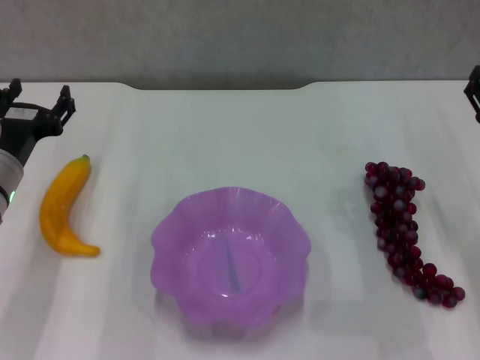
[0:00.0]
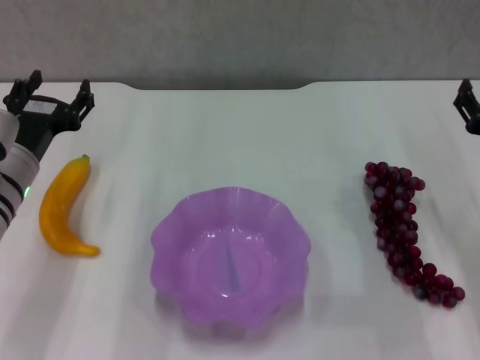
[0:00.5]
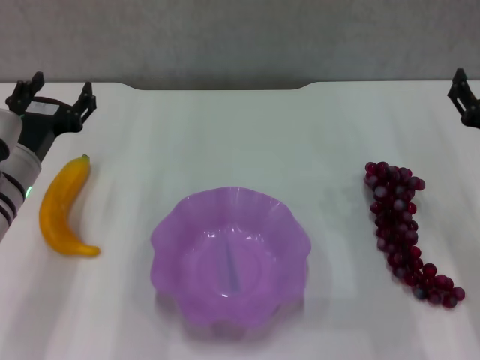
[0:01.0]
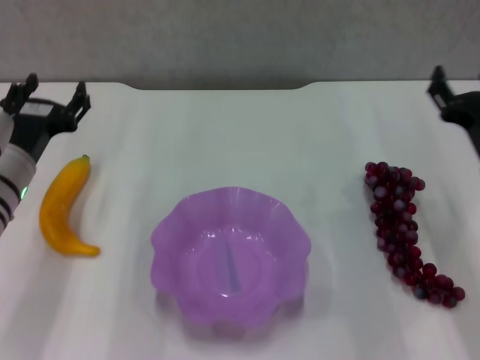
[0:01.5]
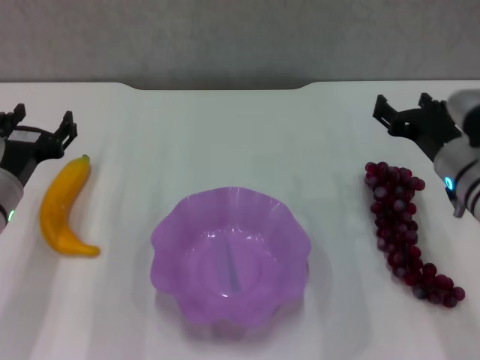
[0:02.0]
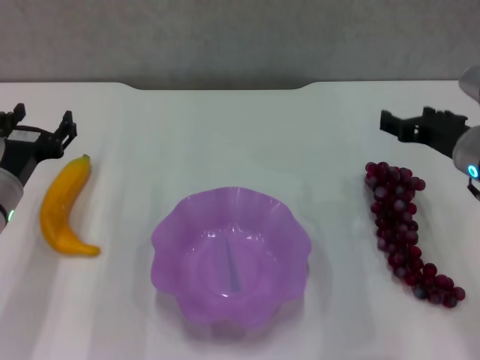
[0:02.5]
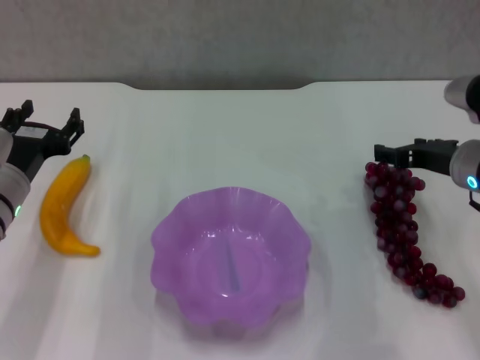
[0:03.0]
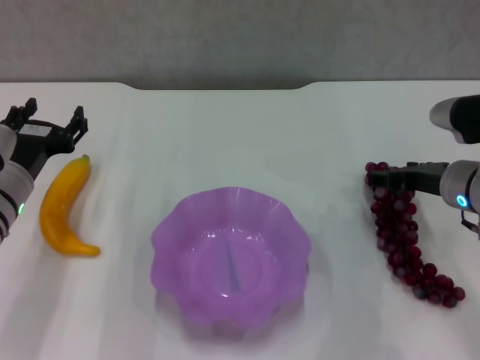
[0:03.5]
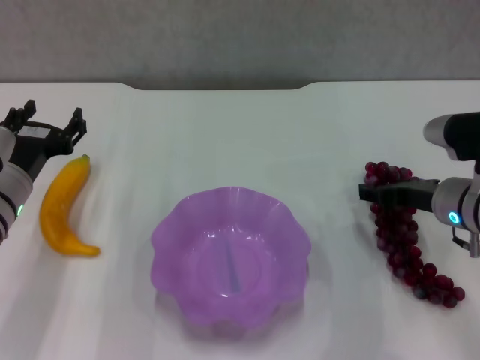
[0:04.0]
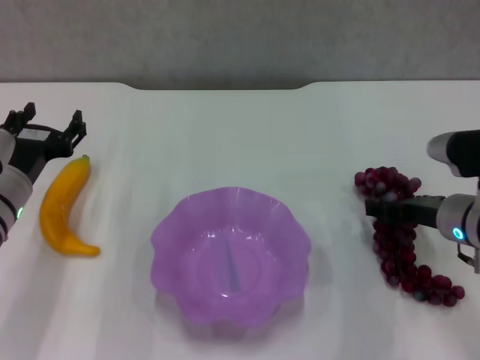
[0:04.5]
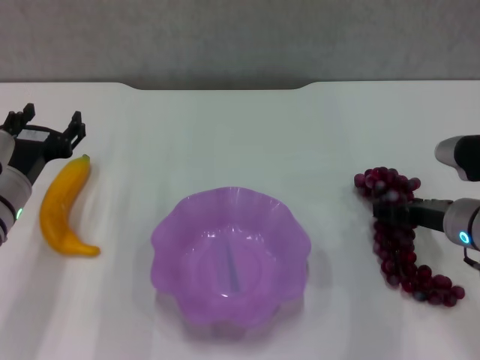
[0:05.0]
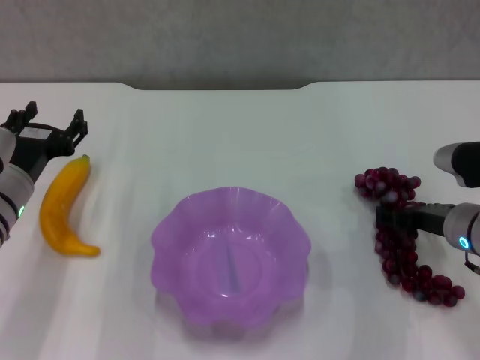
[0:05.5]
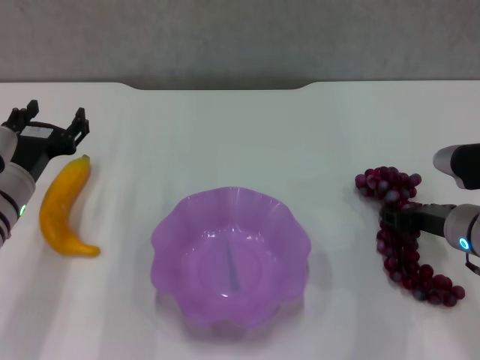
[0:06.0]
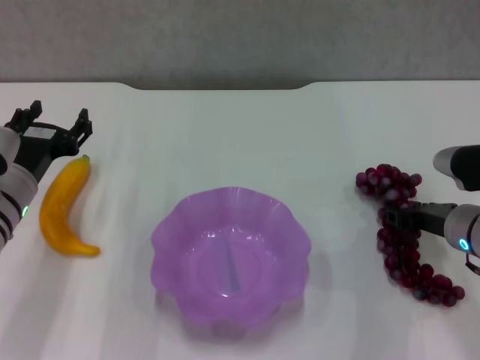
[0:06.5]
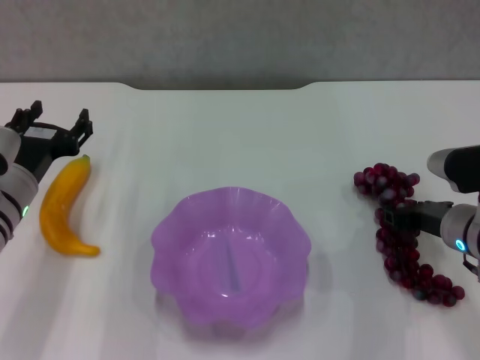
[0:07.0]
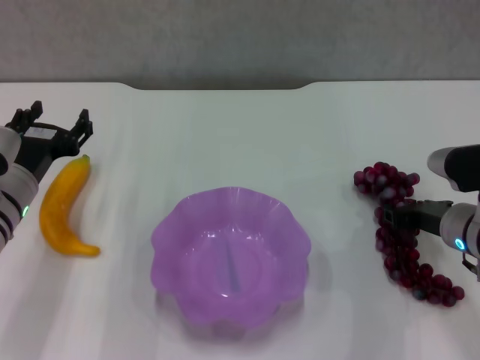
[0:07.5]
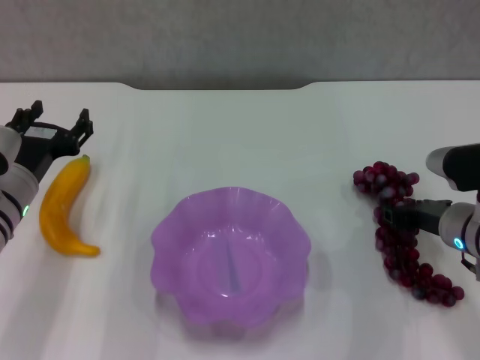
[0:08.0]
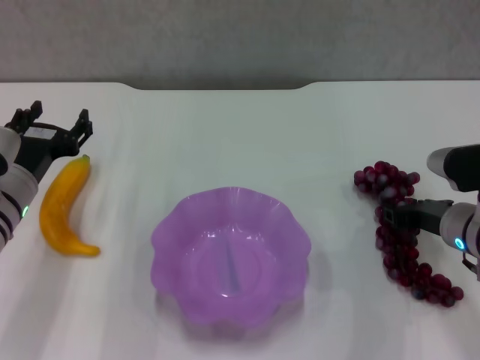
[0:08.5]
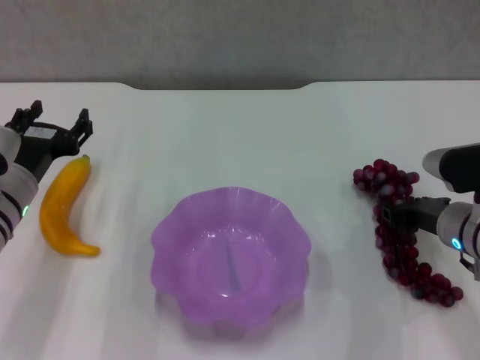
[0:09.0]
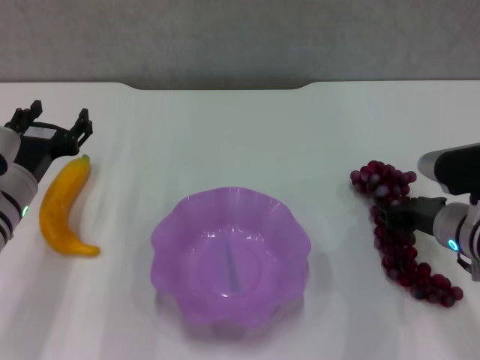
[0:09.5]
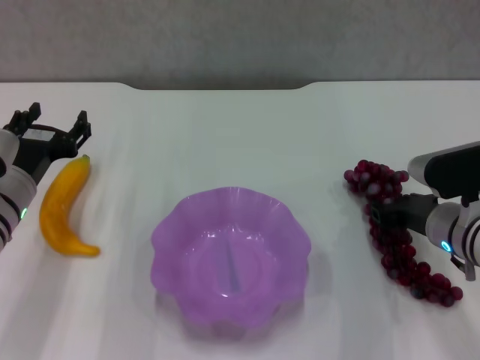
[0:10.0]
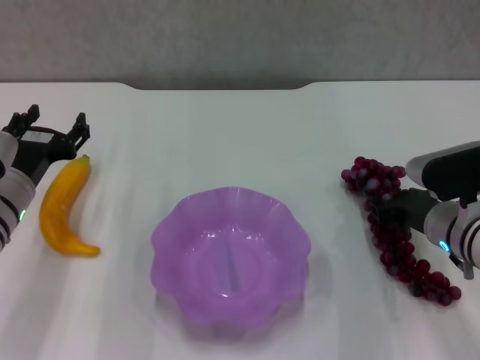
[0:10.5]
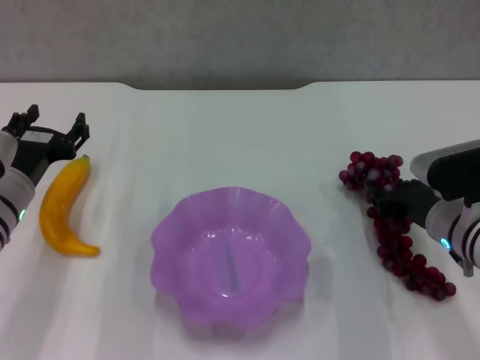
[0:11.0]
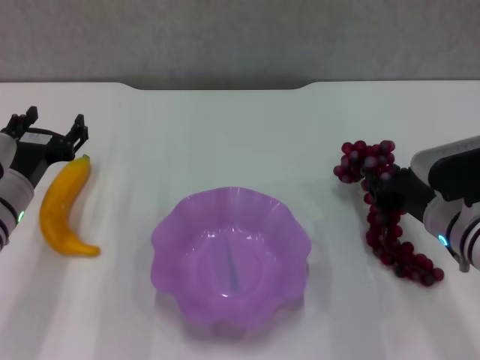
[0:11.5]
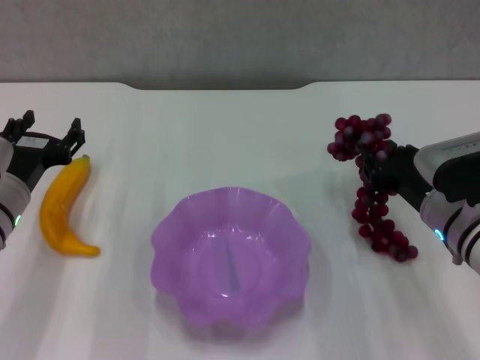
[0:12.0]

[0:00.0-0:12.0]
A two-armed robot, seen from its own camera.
Step, 0.0 to 9.5 s: Grasp the grape with right gripper.
0.0 to 2.0 s: The right gripper goes roughly 5 cm to the left.
4.0 to 6.0 s: The right gripper closes its fingers.
6.0 to 8.0 s: The right gripper closes.
8.0 to 10.0 s: The grippers make only small movements.
10.0 to 12.0 s: The grippers stay close to where they were, moving slightly.

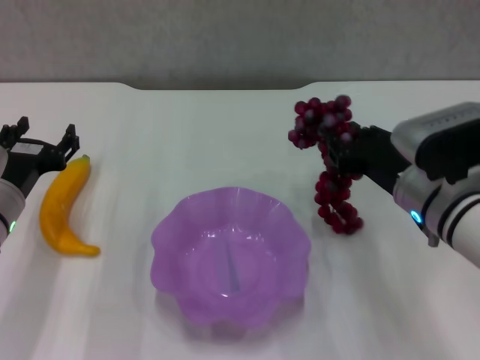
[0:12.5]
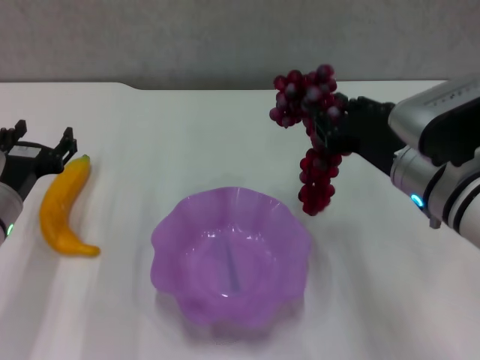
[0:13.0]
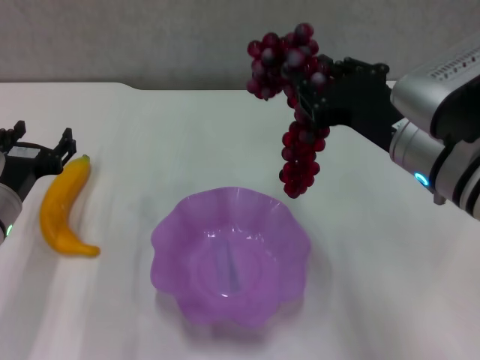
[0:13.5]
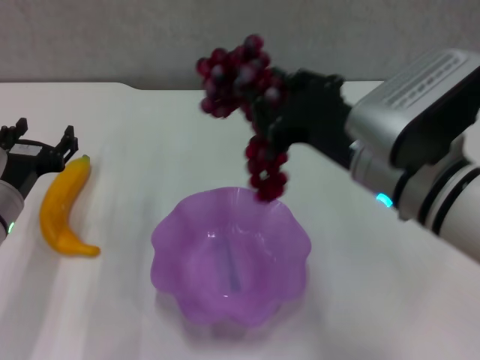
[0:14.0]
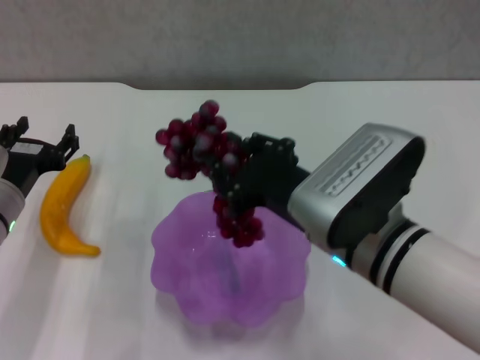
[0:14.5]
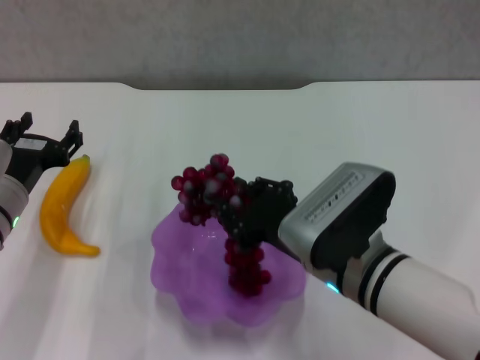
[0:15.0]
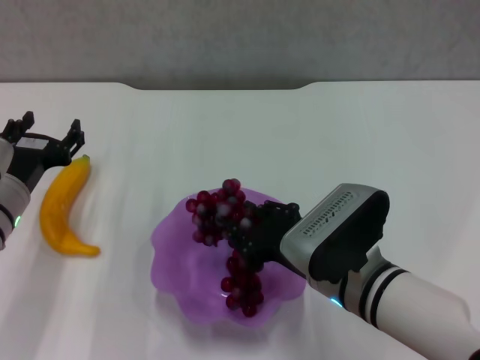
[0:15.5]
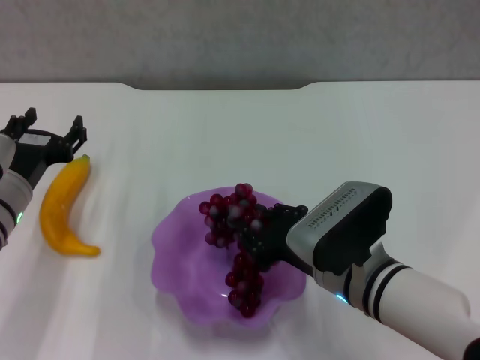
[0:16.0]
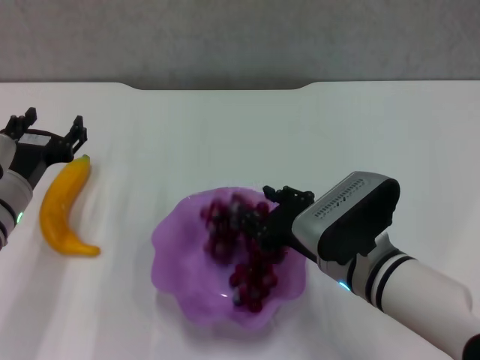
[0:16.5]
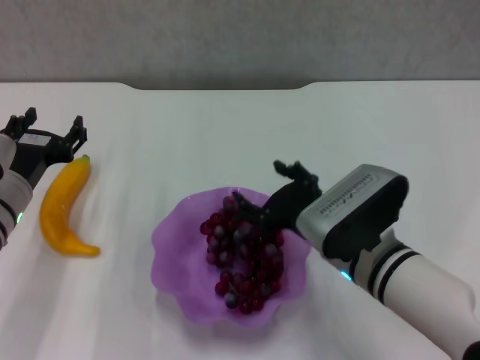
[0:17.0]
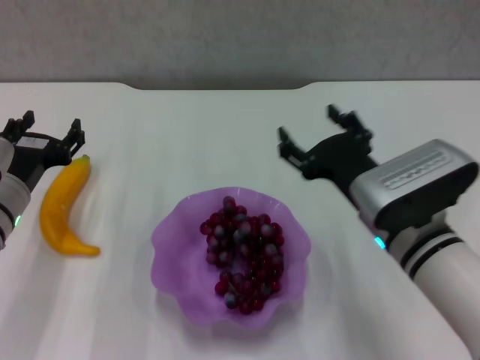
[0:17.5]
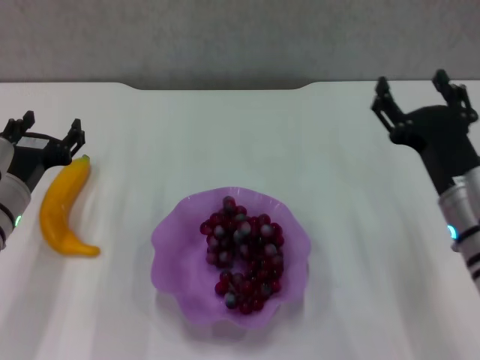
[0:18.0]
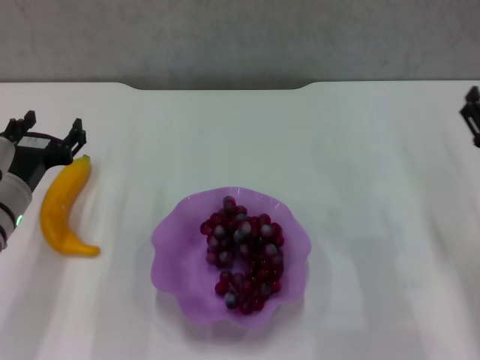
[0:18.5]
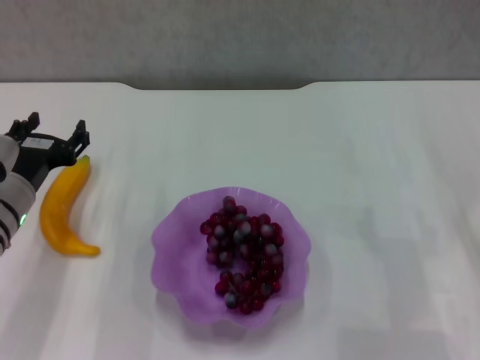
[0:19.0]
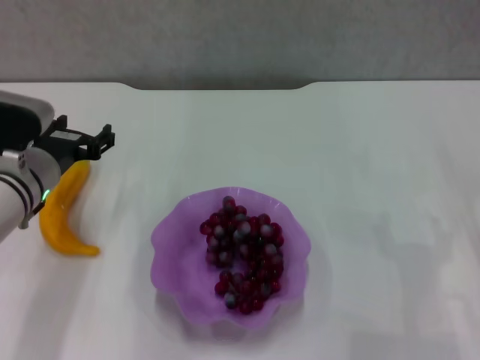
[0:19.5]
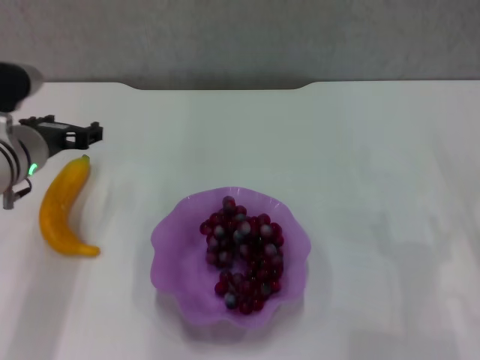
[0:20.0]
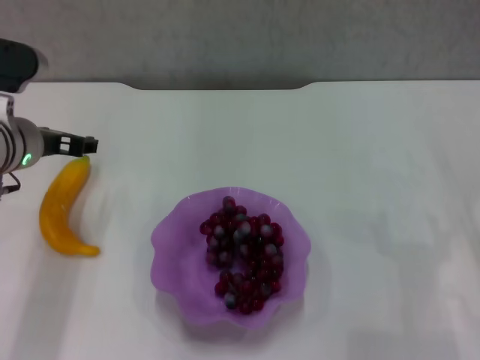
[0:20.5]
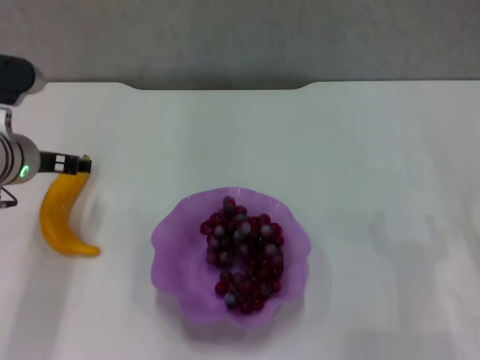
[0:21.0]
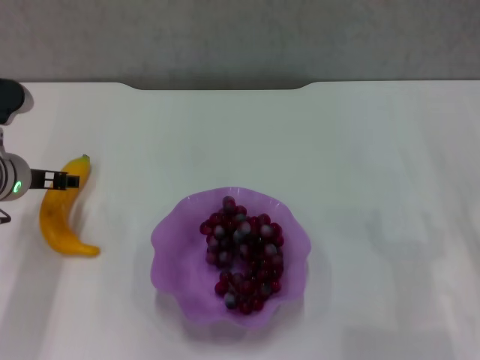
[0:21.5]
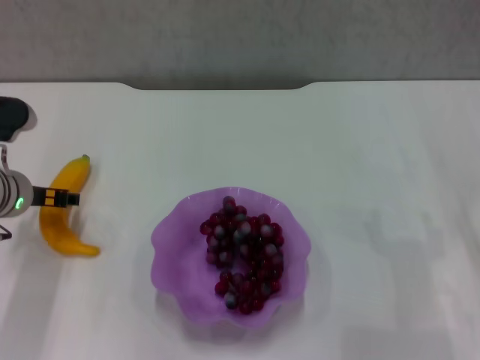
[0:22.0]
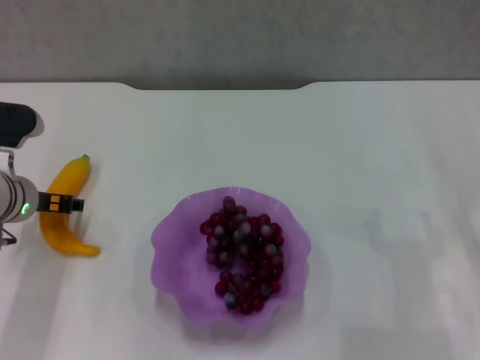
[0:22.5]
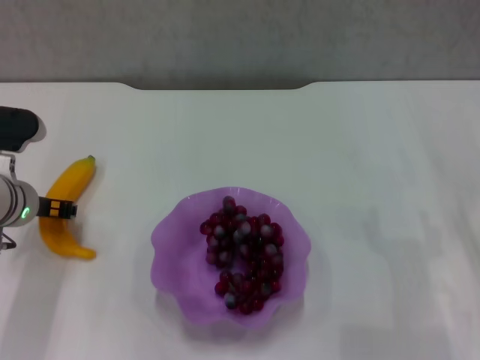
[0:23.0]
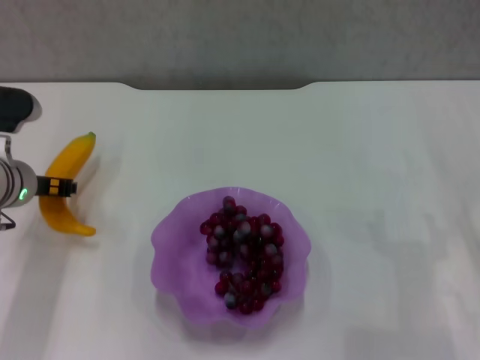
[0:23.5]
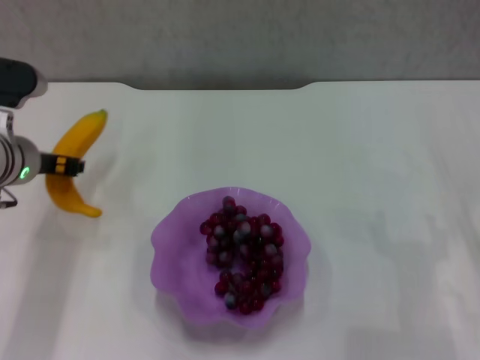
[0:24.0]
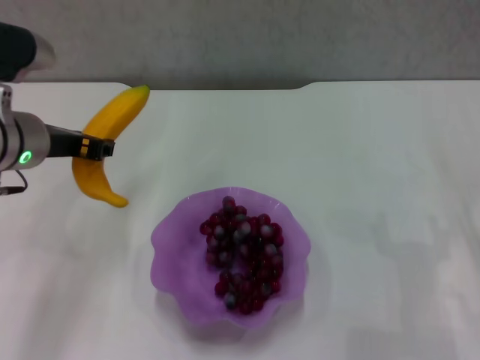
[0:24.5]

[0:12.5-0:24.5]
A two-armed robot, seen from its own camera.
Step, 12.5 to 16.5 s: Place the grape in the purple plate with right gripper.
Step, 17.0 to 23.0 s: Grasp the banana with left gripper.
12.5 to 14.5 s: The right gripper goes about 10 cm to the left and backward.
14.5 to 16.5 s: The right gripper goes approximately 10 cm downward.
16.5 to 18.5 s: The right gripper is displaced to the right by approximately 15 cm, and opens.
18.5 to 20.5 s: The left gripper heads upward, covering approximately 10 cm.
20.5 to 22.5 s: The left gripper moves downward, some 5 cm.
22.5 to 24.5 s: The left gripper is displaced upward by approximately 10 cm, and closes.

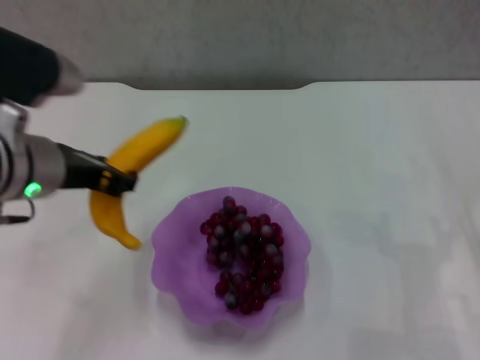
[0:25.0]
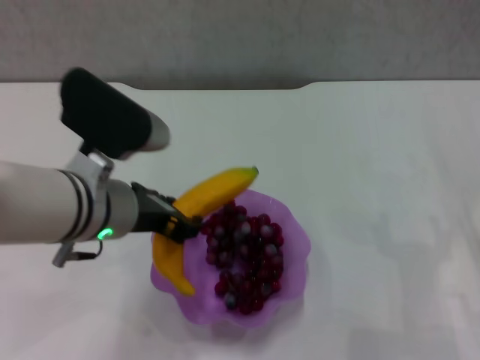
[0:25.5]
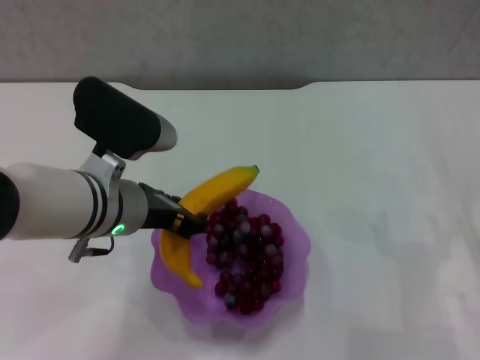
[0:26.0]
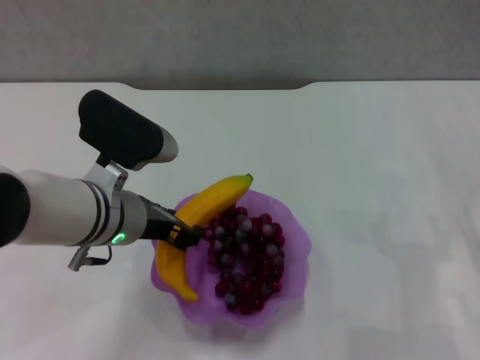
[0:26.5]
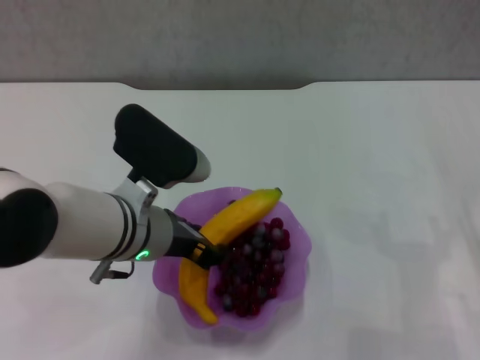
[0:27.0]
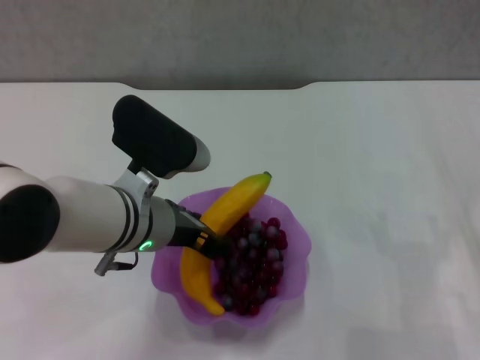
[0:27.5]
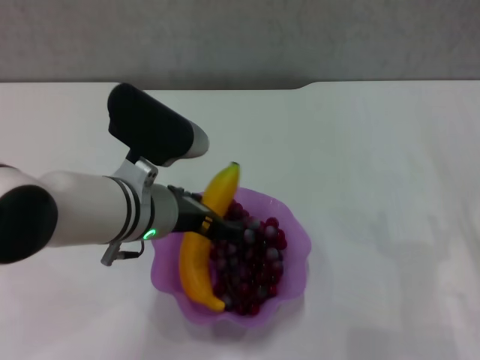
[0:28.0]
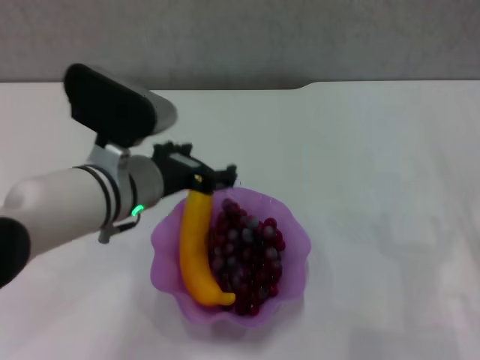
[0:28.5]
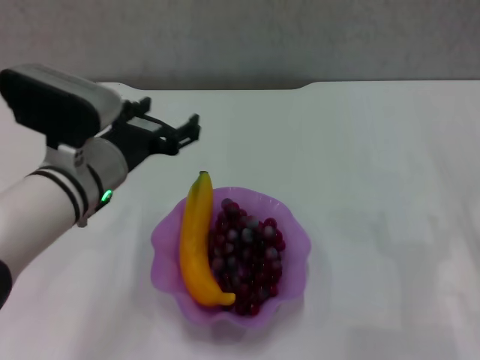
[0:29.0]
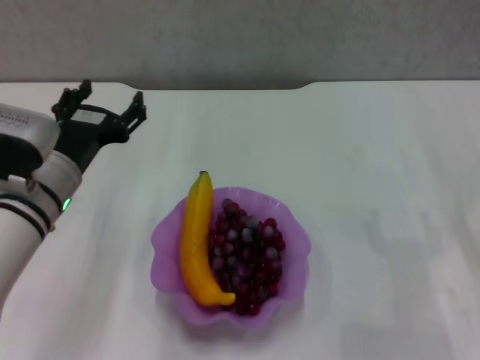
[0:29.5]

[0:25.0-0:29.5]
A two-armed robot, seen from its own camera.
Step, 25.0 to 28.0 s: Place the banana in the purple plate with left gripper.
25.0 to 27.0 s: The left gripper moves to the right and downward, about 10 cm.
27.0 to 29.5 s: The left gripper moves to the left, some 10 cm, and opens up.
